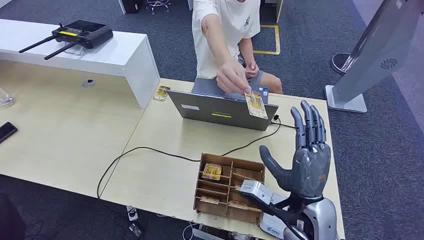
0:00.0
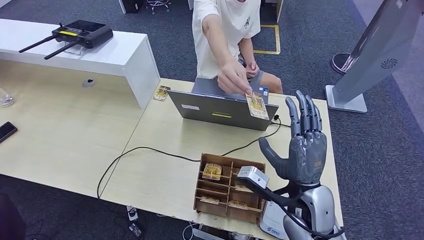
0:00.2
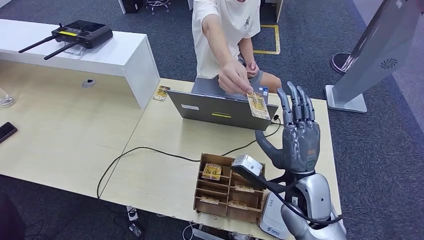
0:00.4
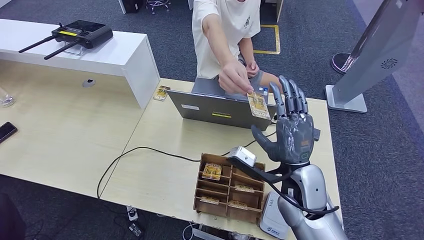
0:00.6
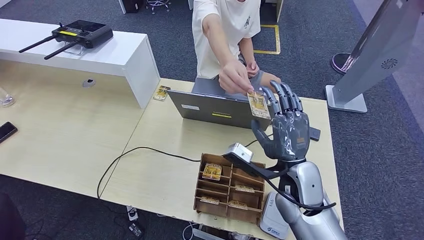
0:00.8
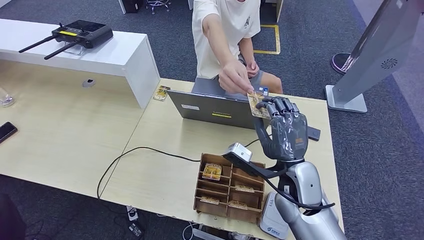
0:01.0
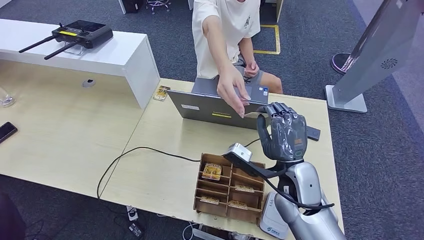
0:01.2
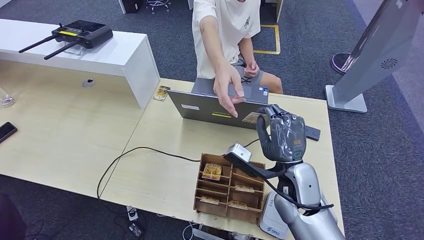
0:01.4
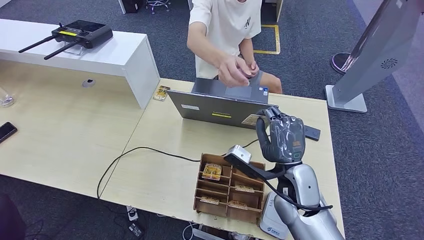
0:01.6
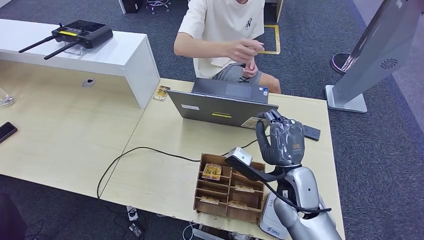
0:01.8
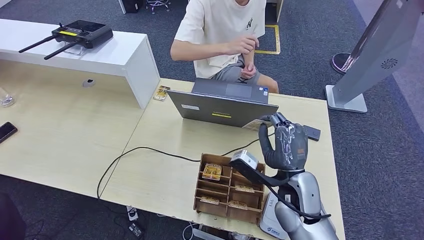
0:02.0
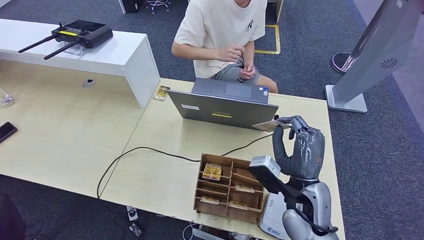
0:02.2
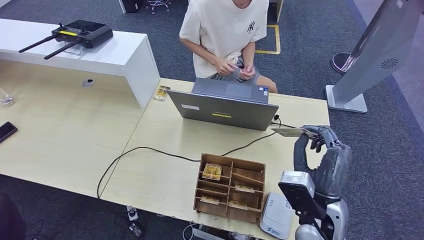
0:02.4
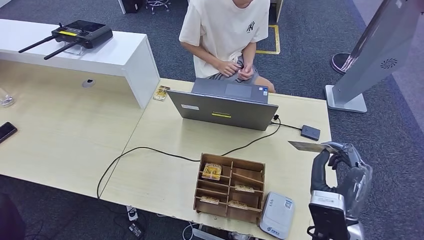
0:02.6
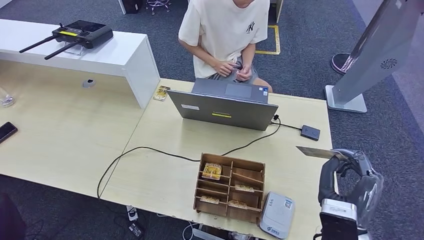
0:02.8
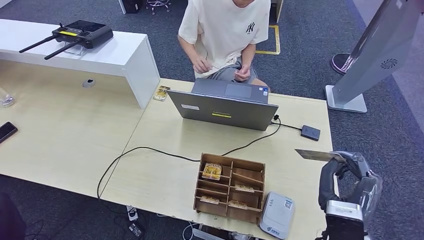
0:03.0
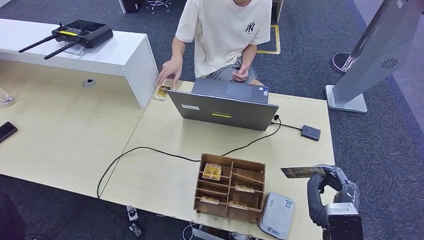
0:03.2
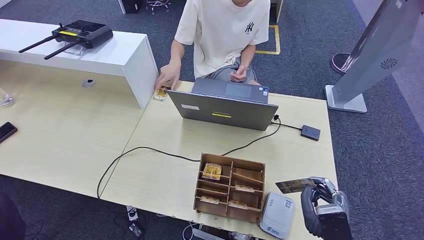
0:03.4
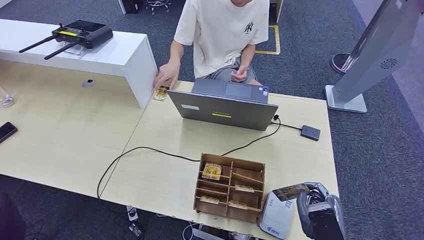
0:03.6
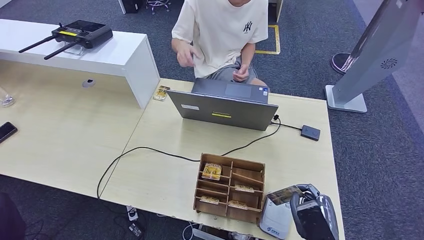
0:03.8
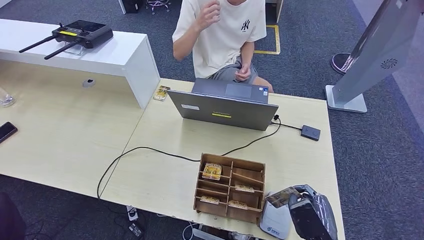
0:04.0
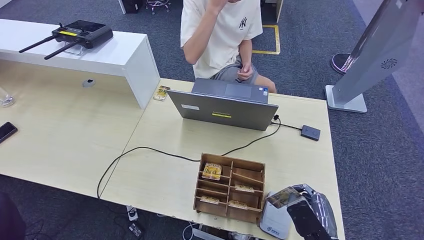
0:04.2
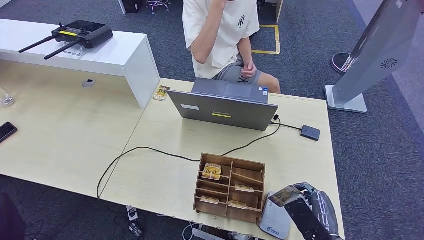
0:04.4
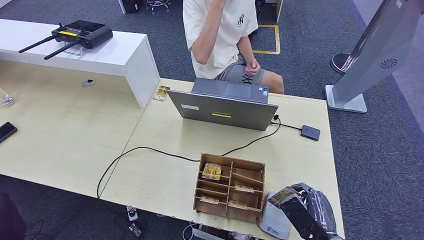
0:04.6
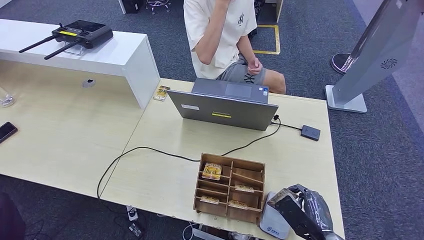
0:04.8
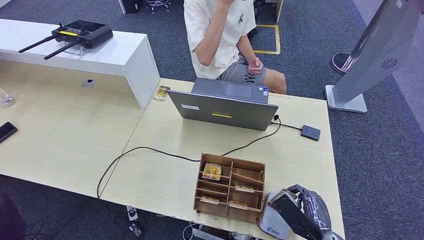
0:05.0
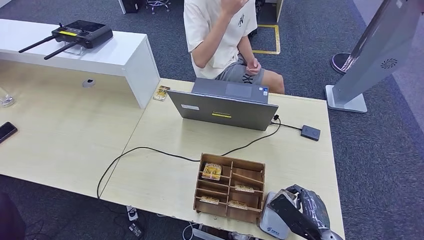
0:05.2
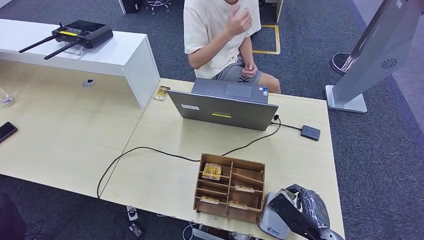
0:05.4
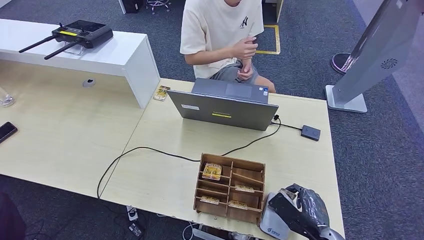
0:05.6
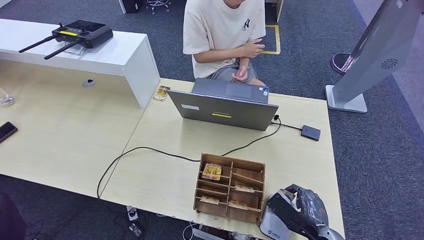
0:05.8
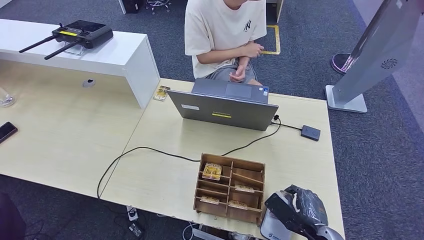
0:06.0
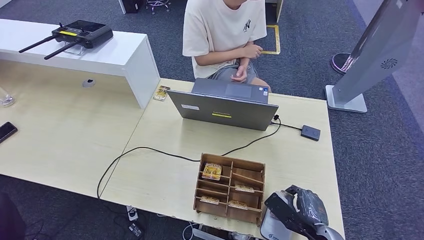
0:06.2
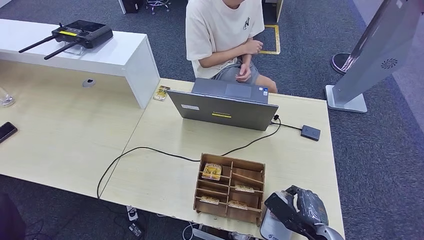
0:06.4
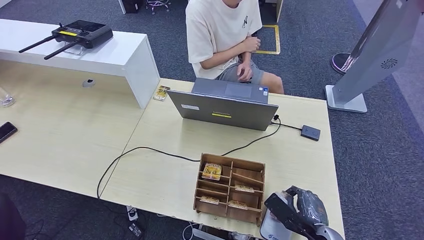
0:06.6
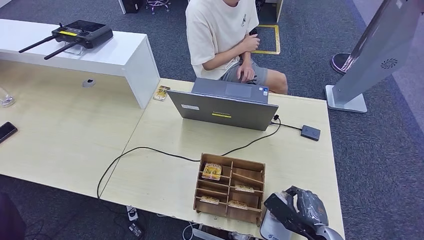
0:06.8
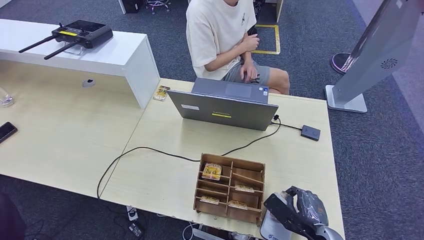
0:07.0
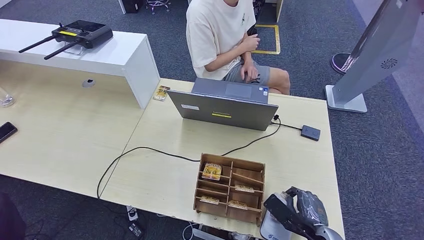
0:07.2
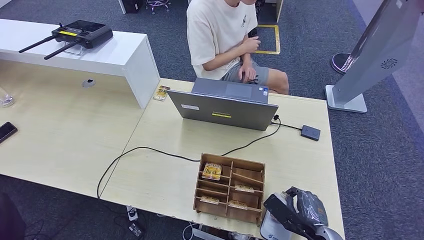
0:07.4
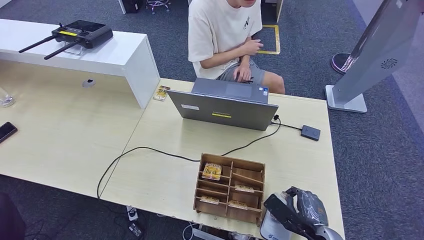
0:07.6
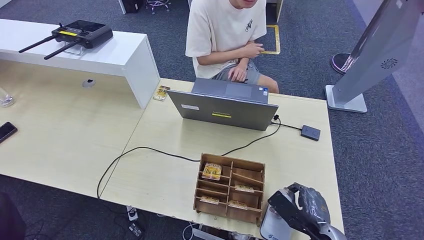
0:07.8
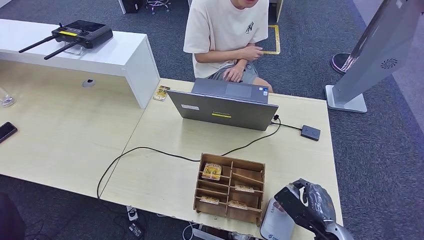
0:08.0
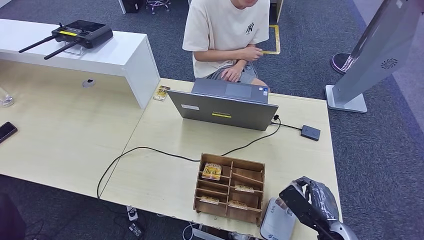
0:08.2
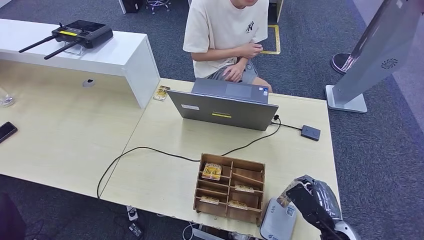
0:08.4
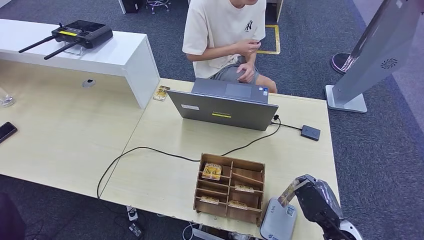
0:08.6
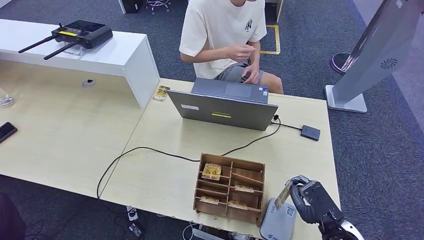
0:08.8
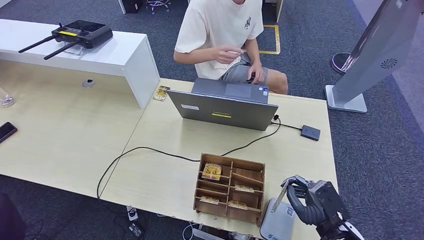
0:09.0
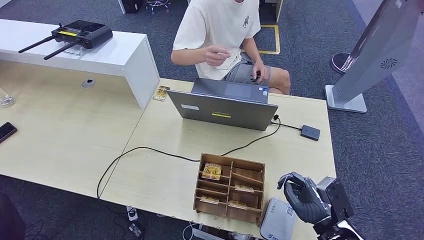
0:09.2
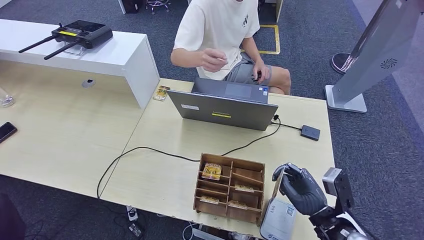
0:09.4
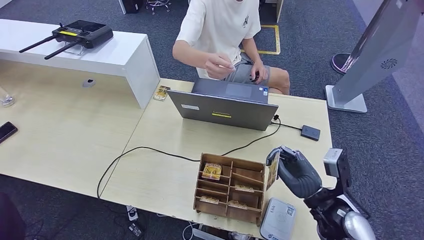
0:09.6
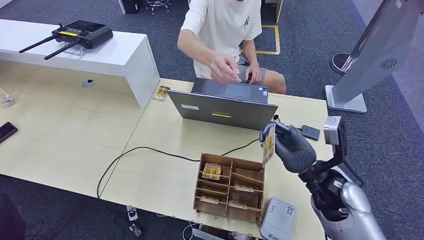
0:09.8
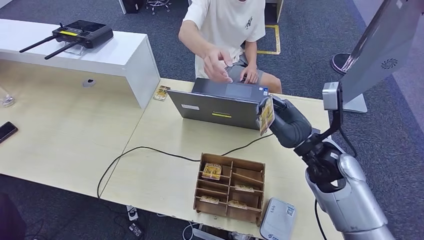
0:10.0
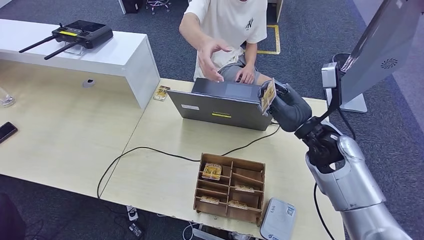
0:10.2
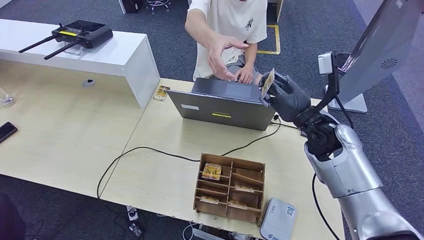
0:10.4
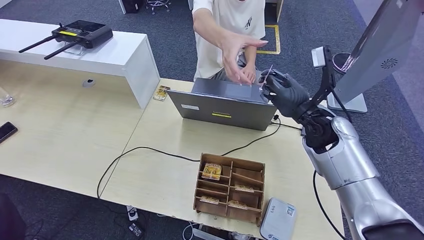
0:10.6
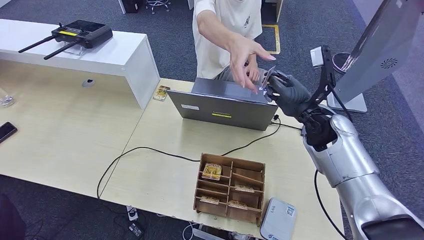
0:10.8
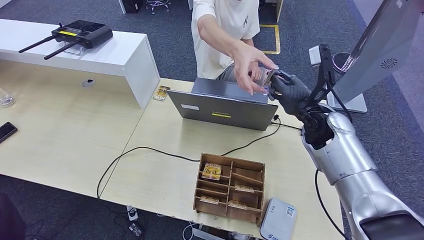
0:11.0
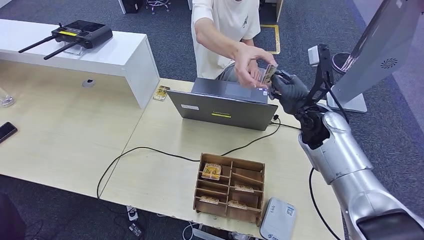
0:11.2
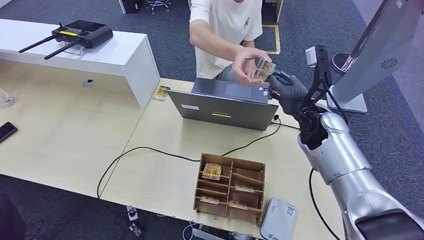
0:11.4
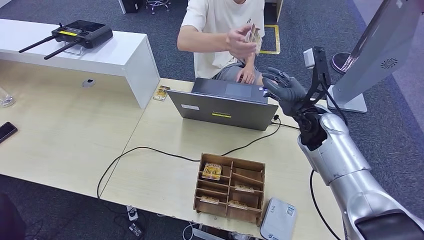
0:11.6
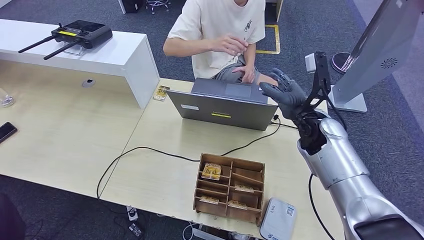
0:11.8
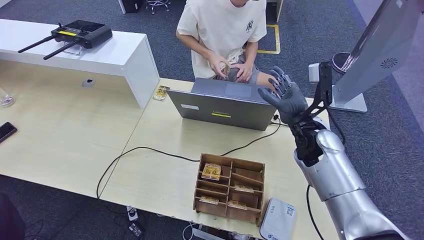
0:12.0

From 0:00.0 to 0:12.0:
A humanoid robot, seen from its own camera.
Step, from 0:00.0 to 0:02.2: Take the ID card from the person's hand.
Step, from 0:02.6 to 0:09.8: Place the ID card on the card reader.
From 0:01.6 to 0:03.0: The right hand moves backward and to the right, roughly 15 cm.
From 0:03.0 to 0:04.4: The right hand shifts approximately 10 cm downward.
From 0:06.0 to 0:07.6: Neither hand changes place.
From 0:09.0 to 0:10.4: The right hand goes approximately 25 cm forward and upward.

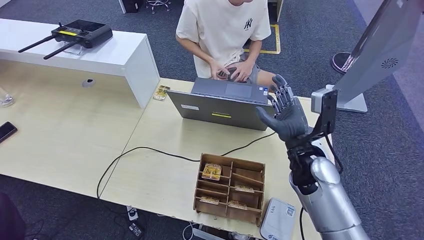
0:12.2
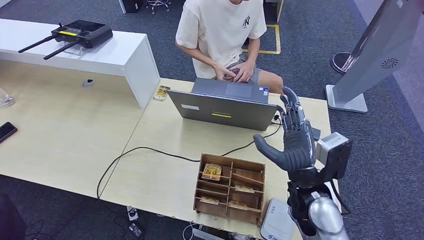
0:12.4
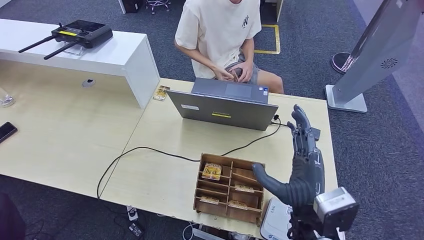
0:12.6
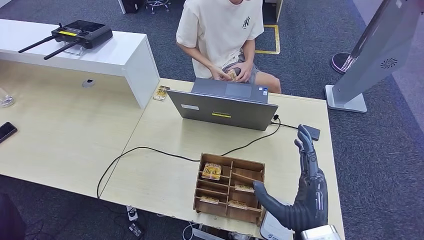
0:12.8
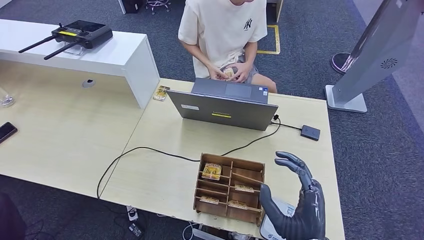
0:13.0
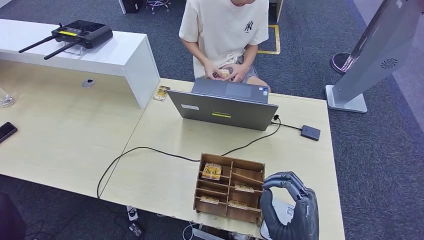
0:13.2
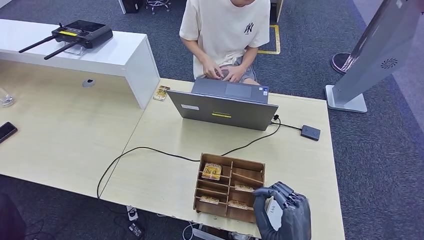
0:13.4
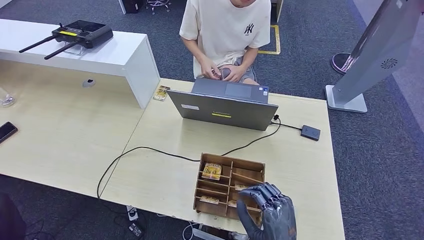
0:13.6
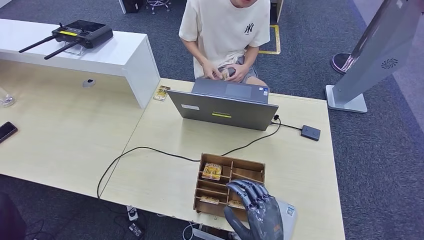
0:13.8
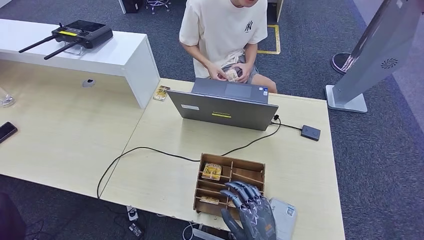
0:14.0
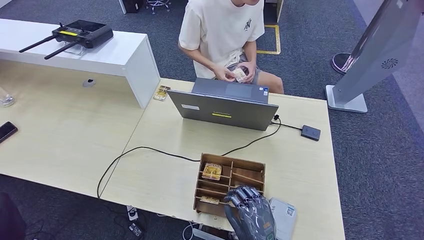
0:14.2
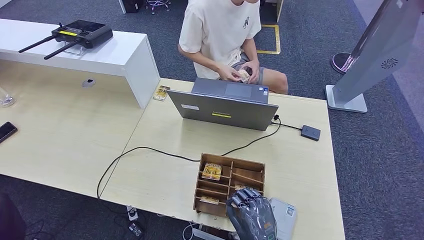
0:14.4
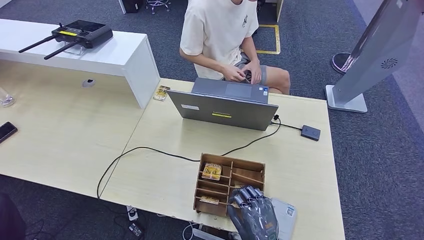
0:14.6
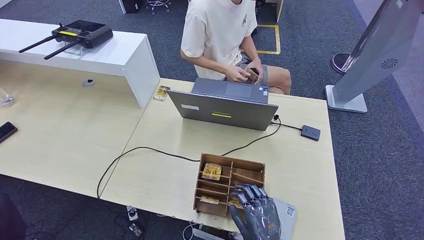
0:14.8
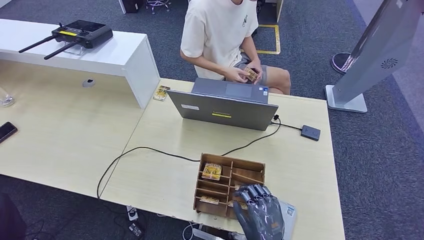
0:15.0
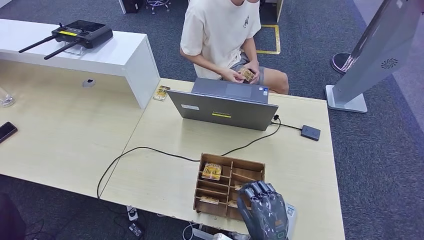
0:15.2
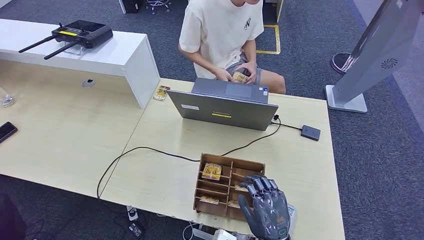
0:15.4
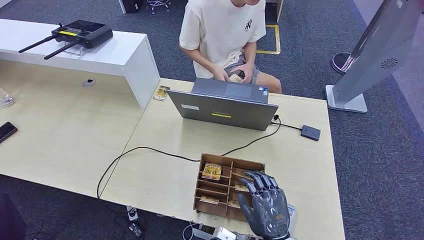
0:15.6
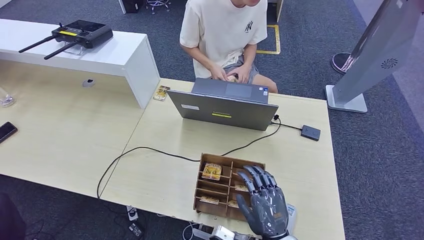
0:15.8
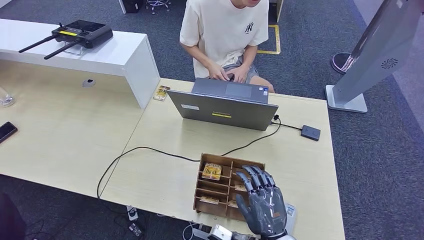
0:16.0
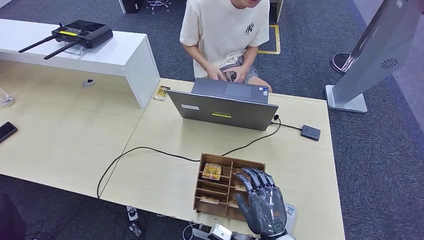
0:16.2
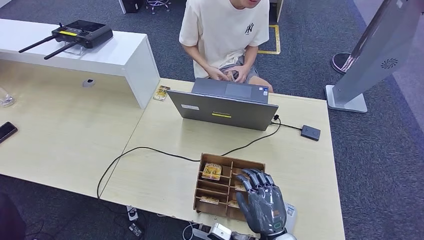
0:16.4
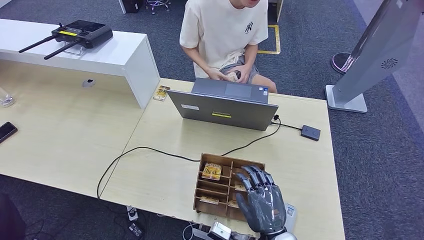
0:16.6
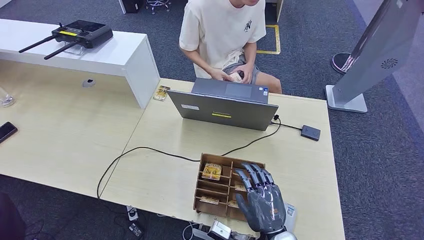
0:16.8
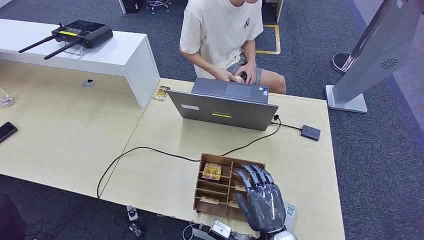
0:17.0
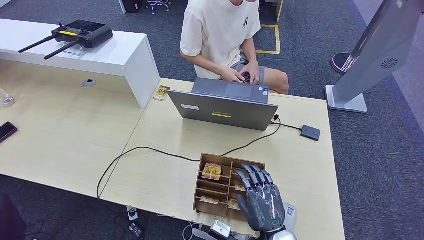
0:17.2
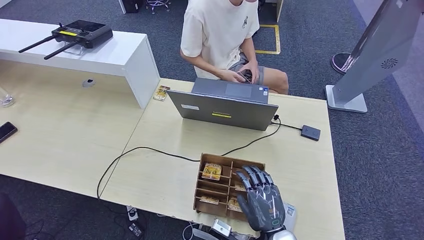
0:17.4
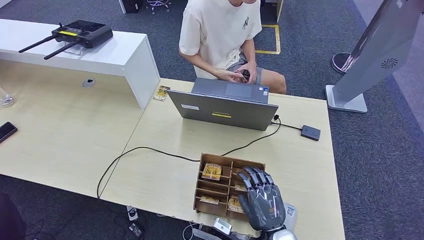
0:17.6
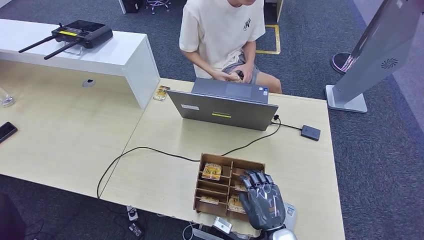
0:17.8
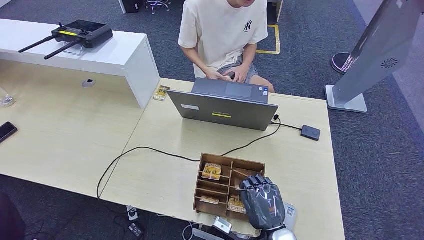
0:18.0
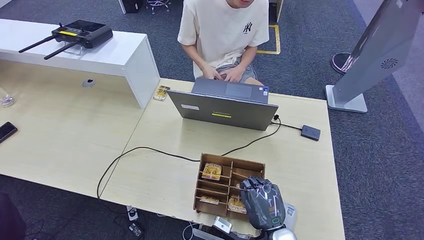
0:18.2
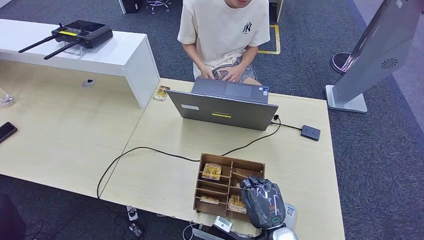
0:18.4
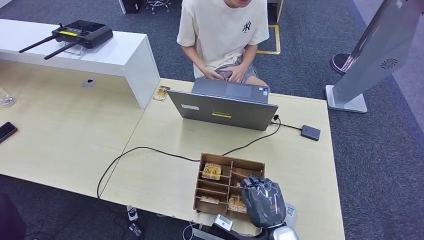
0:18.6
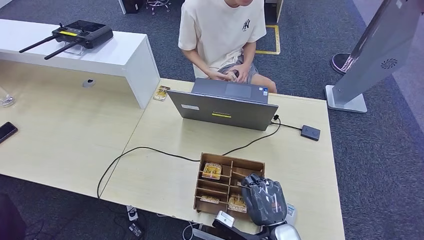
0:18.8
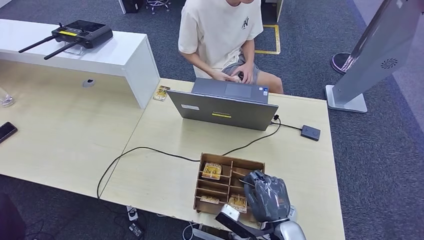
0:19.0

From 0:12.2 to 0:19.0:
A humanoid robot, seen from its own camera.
From 0:12.2 to 0:13.6: The right hand goes some 25 cm backward.
From 0:13.6 to 0:15.0: The right hand shifts by approximately 5 cm.
From 0:15.0 to 0:19.0: The hands move only a little.
